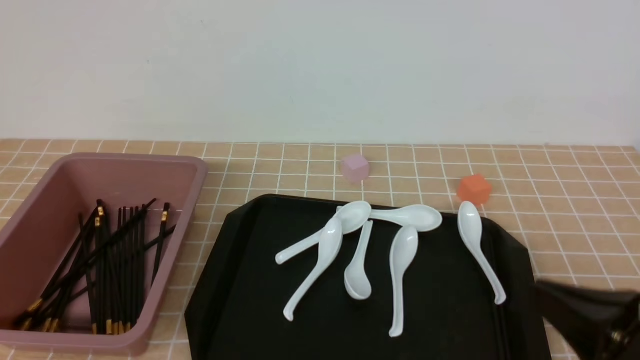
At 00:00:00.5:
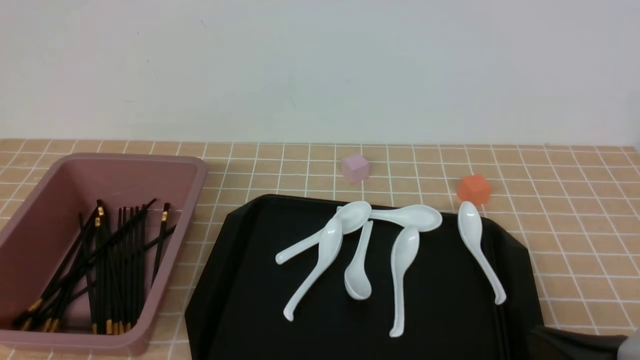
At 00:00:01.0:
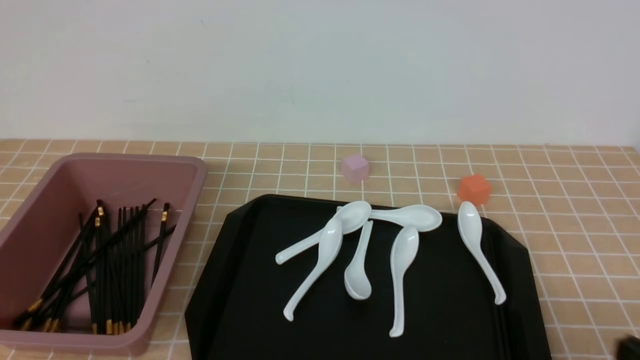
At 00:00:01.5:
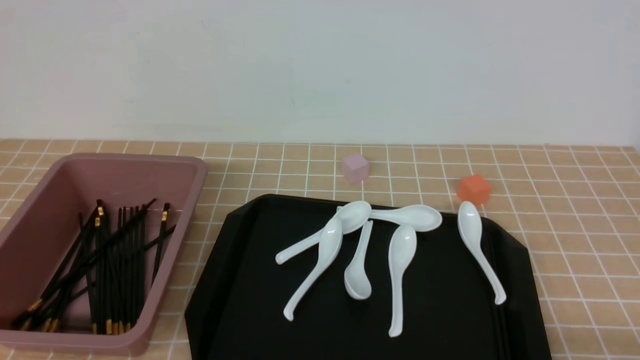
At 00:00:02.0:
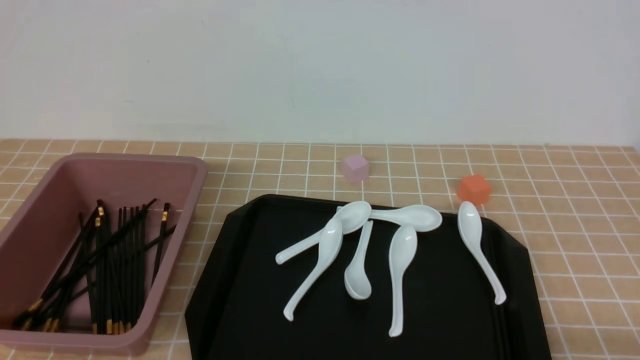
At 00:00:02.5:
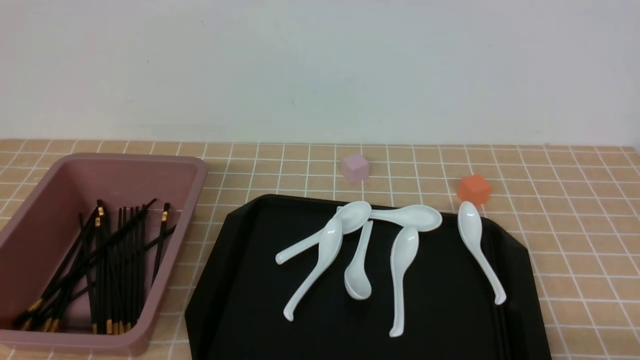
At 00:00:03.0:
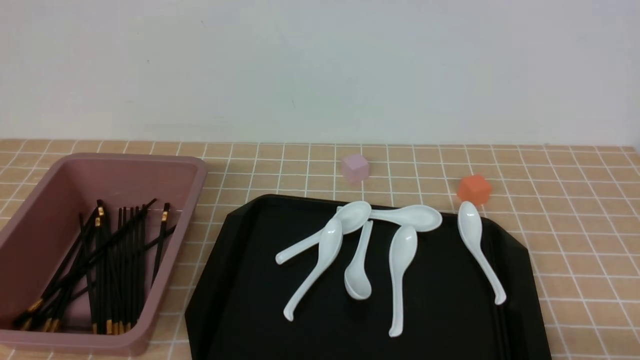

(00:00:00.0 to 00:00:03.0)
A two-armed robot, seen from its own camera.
00:00:00.0 - 00:00:01.5: The right gripper is displaced downward, to the right and backward by some 10 cm.
00:00:01.5 - 00:00:03.0: Neither gripper changes place.
